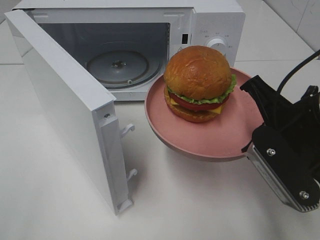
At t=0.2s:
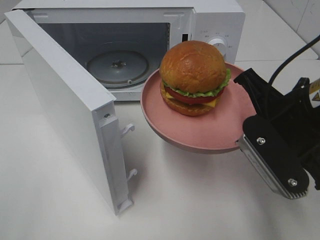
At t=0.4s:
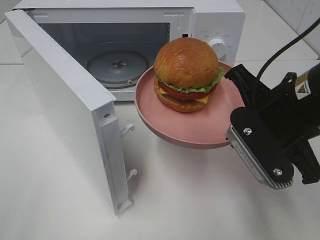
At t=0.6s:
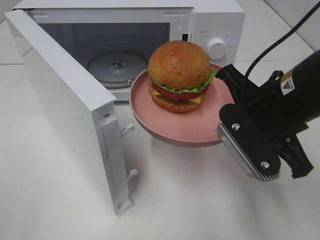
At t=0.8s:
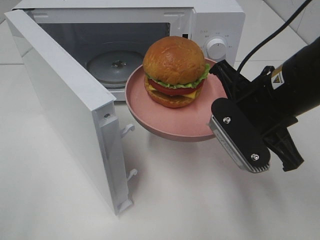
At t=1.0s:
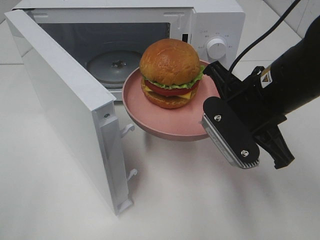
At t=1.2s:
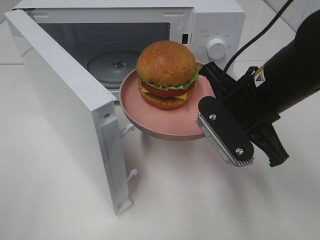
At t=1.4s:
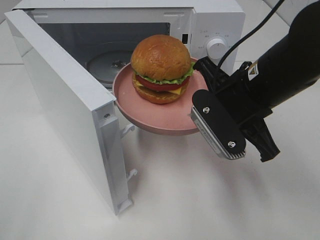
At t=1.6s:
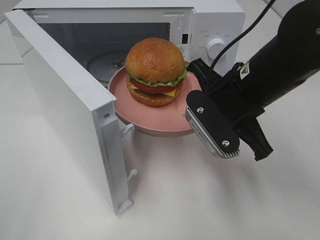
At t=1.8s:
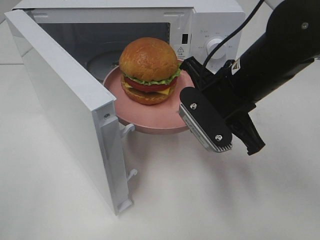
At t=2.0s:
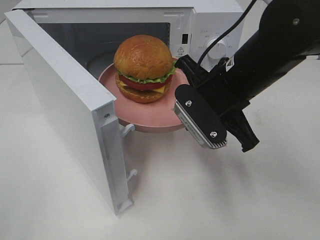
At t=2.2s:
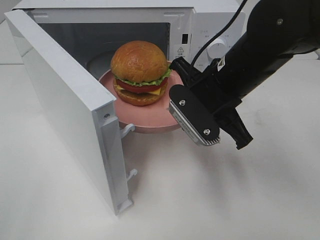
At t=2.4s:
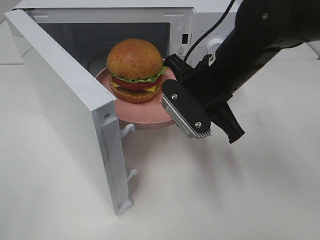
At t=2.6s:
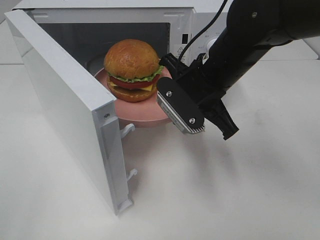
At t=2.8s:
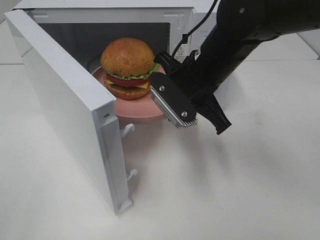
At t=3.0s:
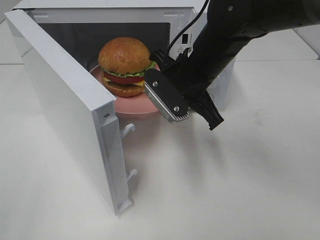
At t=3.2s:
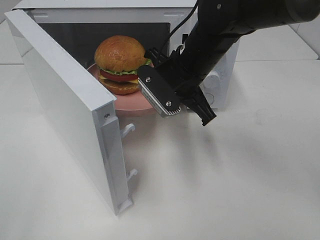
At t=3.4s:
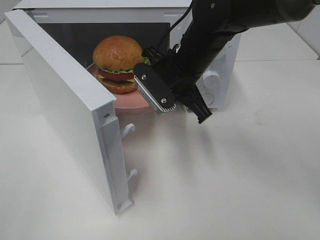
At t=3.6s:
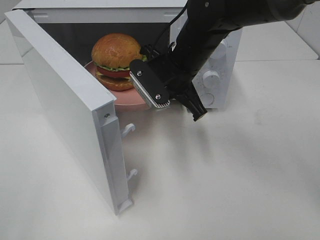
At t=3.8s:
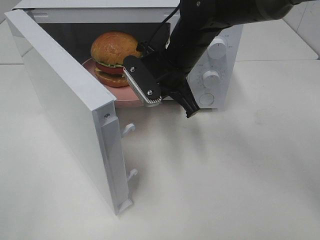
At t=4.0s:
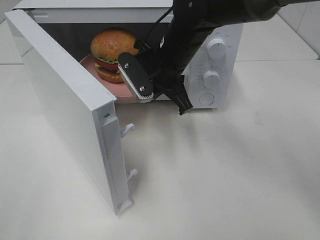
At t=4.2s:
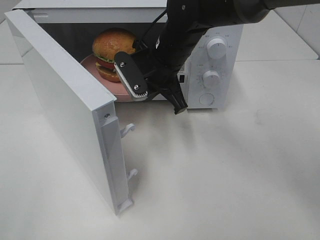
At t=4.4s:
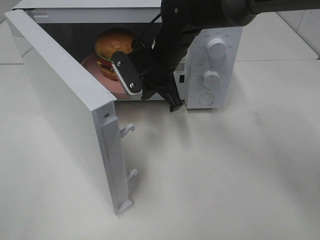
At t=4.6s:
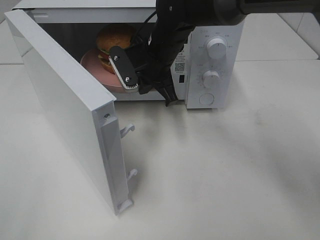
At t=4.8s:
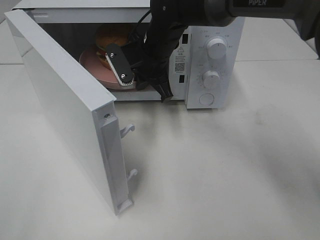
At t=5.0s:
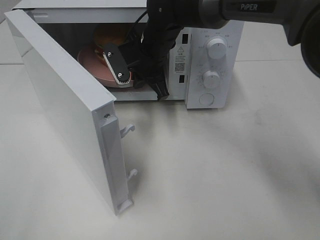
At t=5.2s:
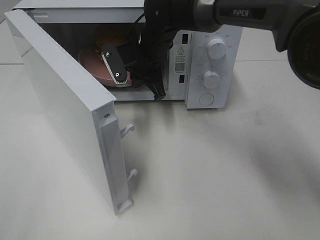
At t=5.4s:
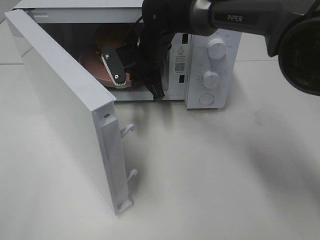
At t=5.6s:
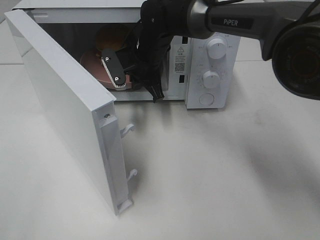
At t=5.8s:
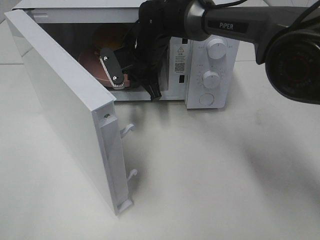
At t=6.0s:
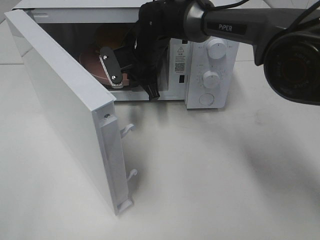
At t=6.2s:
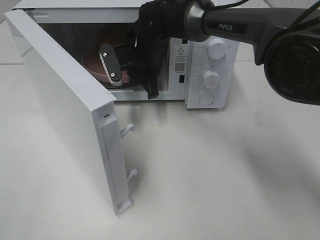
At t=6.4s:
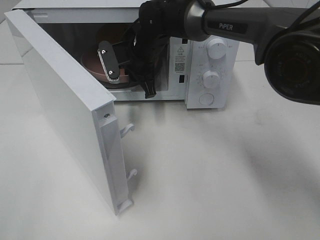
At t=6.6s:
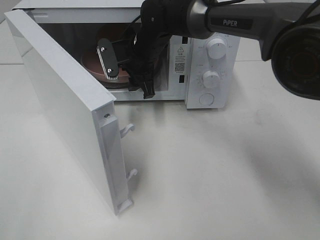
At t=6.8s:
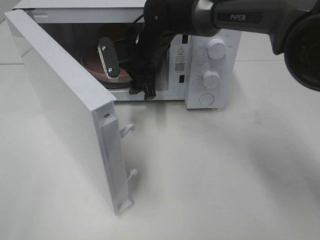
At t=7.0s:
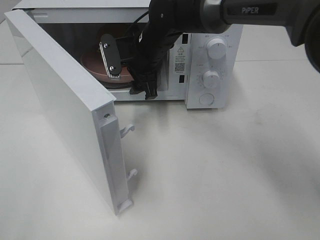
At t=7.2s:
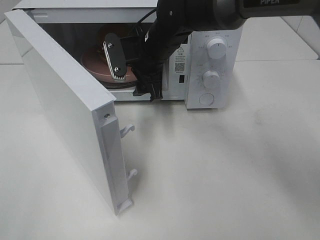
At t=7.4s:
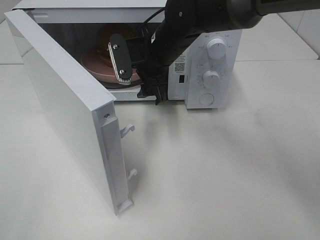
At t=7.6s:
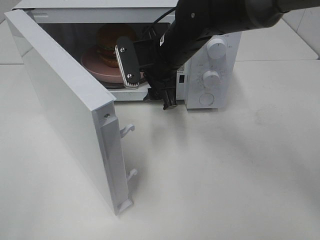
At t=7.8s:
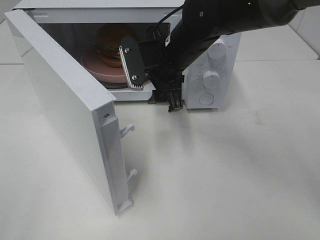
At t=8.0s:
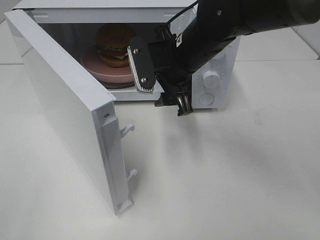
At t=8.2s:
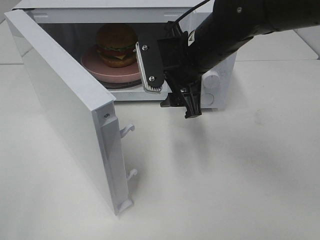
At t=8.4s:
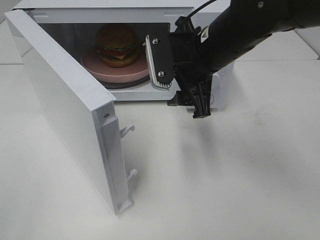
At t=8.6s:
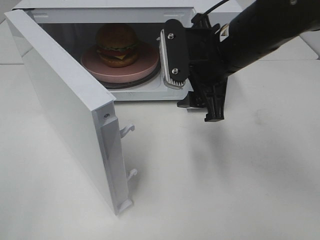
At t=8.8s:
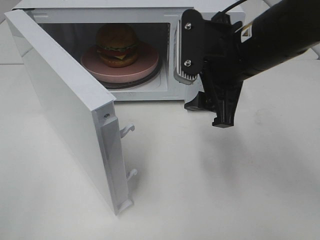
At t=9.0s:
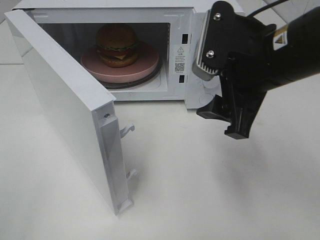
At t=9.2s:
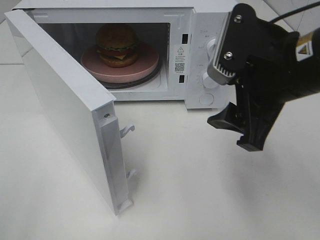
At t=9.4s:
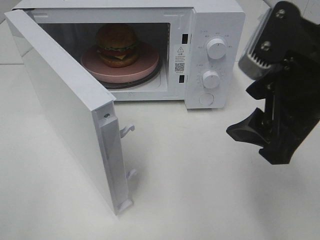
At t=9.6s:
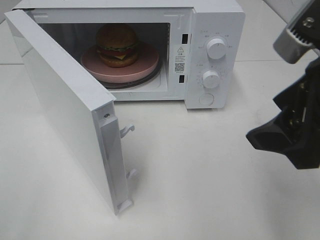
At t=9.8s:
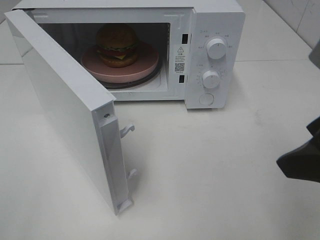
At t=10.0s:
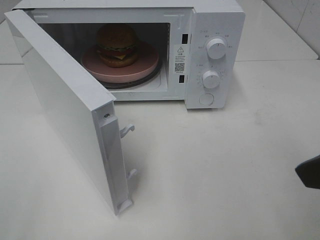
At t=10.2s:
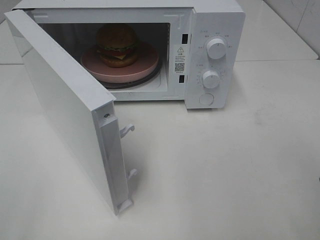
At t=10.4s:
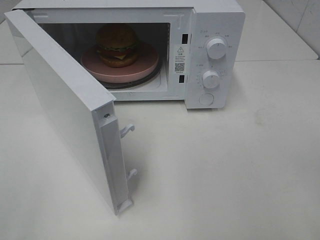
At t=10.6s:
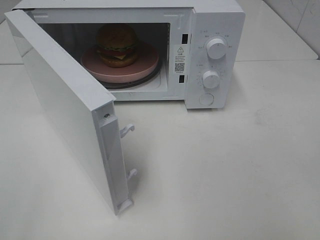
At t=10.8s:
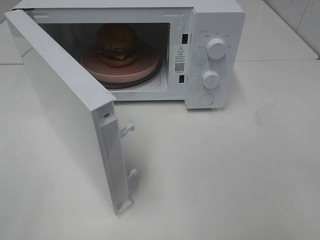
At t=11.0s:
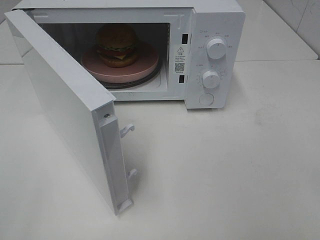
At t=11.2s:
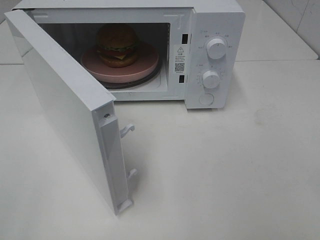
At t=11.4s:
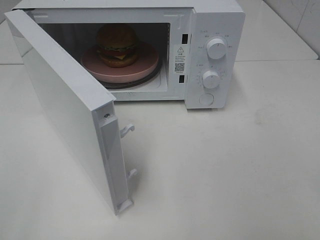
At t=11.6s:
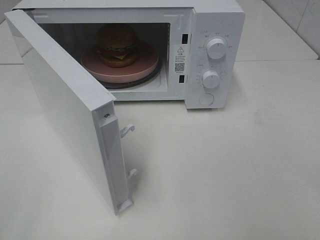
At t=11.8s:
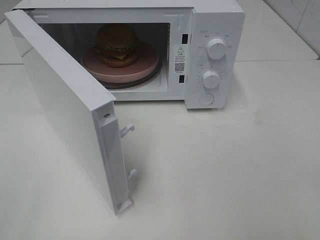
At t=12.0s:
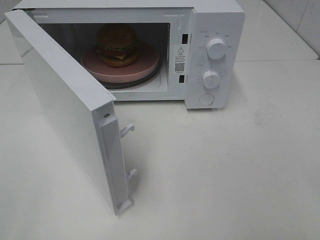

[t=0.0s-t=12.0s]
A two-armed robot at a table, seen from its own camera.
Task of the whole recording: Heat the burger.
Step, t=0.0s to t=6.2s: Right hand: place the plate in the microwave.
t=0.0s to t=1.6s: The right gripper goes about 10 cm forward and to the left.
t=1.6s to t=3.0s: The right gripper travels forward and to the left by approximately 10 cm.
t=3.0s to t=4.4s: The right gripper heads forward, covering some 5 cm.
t=4.4s to t=6.0s: The right gripper shifts approximately 5 cm forward.
t=6.0s to t=7.6s: The right gripper travels backward by about 10 cm, and opens its fingers.
t=7.6s to t=9.0s: The right gripper moves backward, to the right and upward, about 20 cm.
t=9.0s to t=10.4s: The right gripper travels backward and to the right by roughly 20 cm.

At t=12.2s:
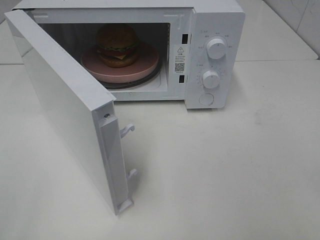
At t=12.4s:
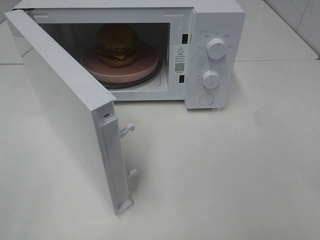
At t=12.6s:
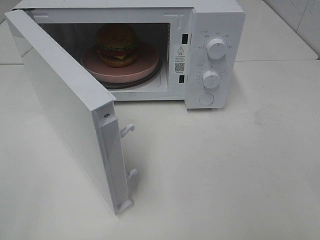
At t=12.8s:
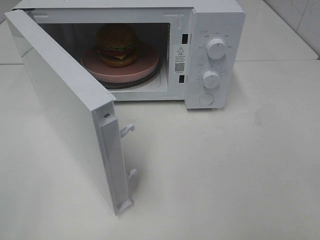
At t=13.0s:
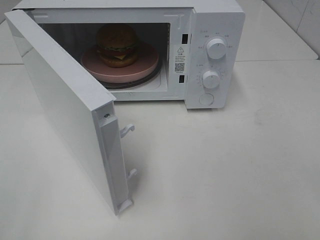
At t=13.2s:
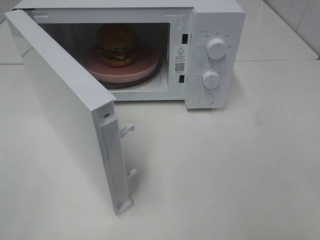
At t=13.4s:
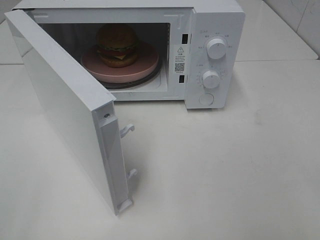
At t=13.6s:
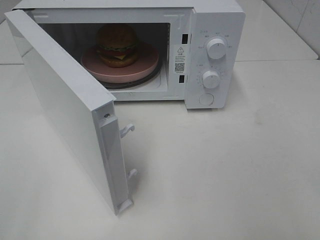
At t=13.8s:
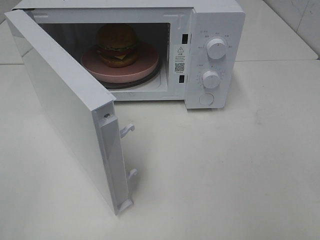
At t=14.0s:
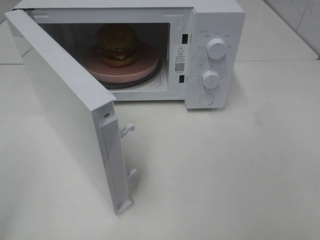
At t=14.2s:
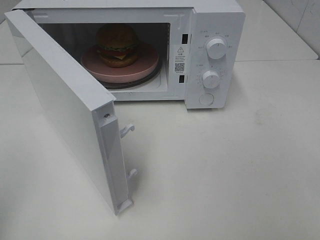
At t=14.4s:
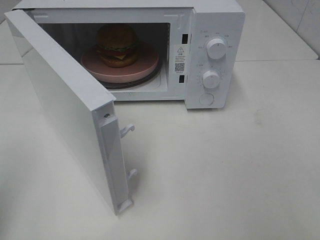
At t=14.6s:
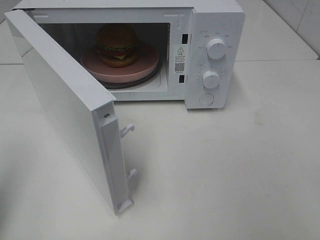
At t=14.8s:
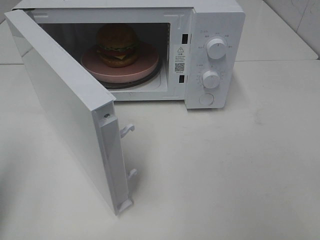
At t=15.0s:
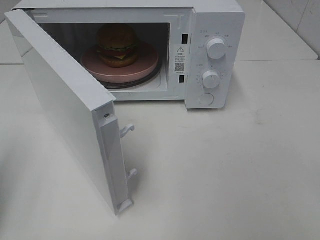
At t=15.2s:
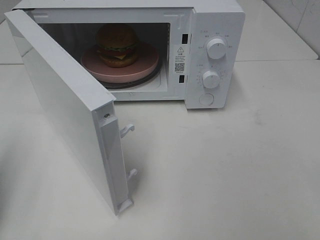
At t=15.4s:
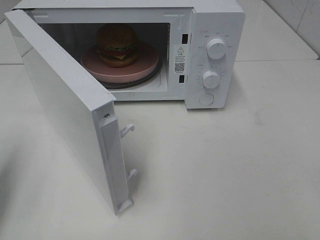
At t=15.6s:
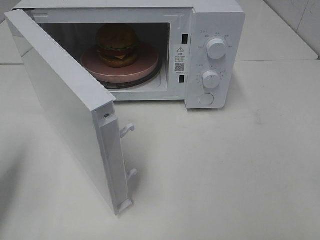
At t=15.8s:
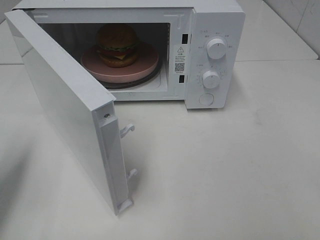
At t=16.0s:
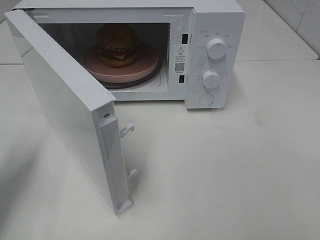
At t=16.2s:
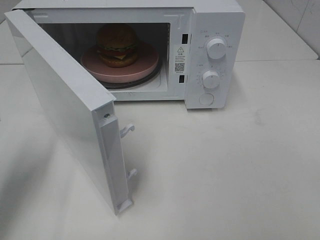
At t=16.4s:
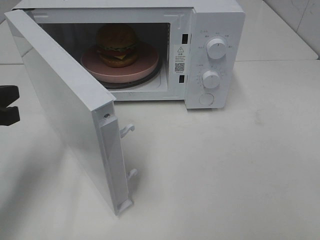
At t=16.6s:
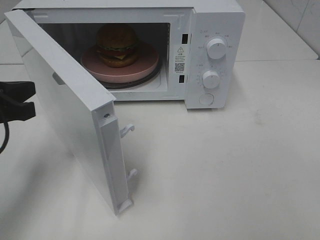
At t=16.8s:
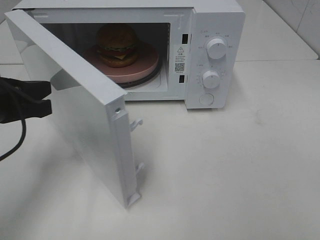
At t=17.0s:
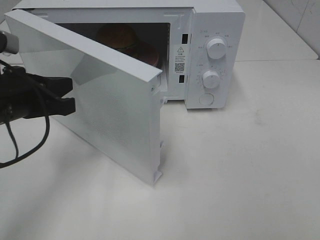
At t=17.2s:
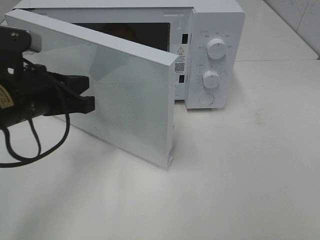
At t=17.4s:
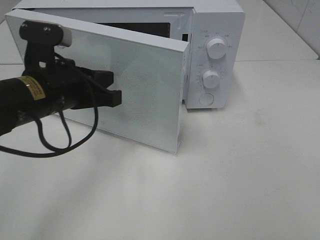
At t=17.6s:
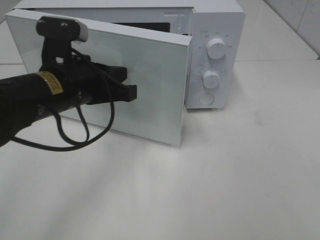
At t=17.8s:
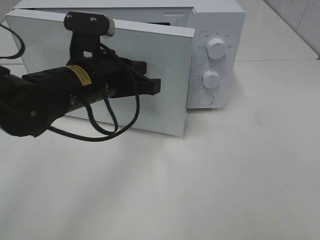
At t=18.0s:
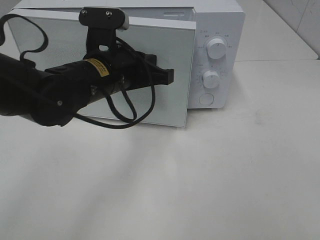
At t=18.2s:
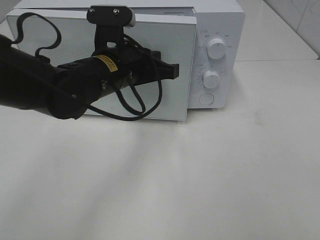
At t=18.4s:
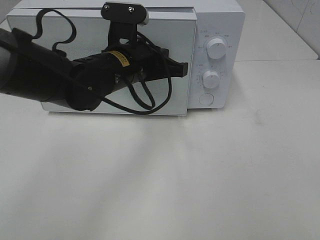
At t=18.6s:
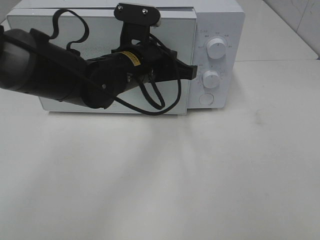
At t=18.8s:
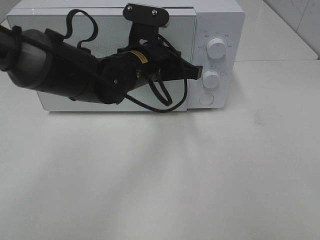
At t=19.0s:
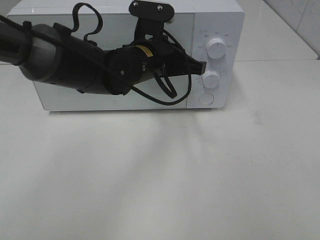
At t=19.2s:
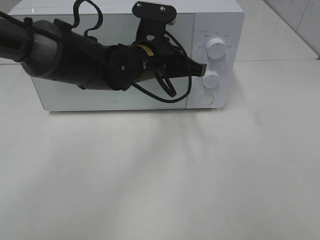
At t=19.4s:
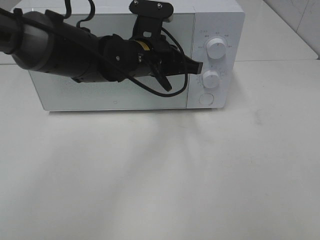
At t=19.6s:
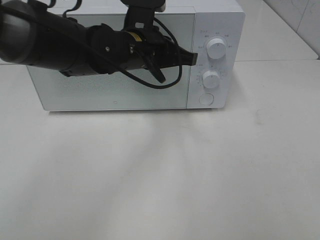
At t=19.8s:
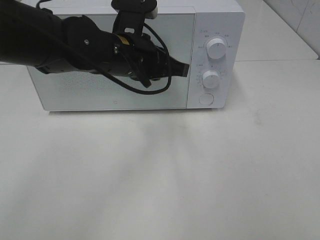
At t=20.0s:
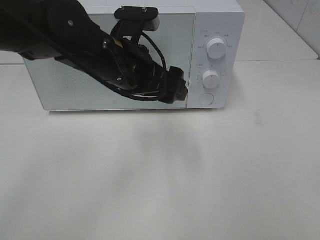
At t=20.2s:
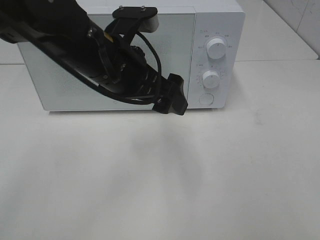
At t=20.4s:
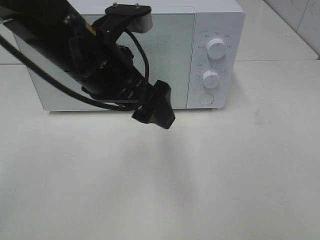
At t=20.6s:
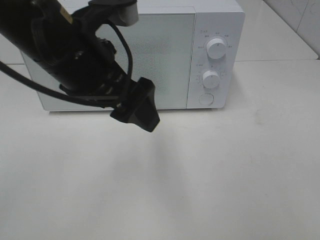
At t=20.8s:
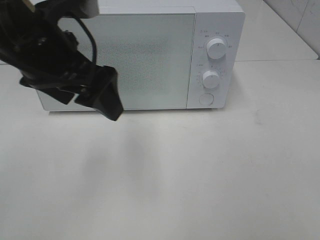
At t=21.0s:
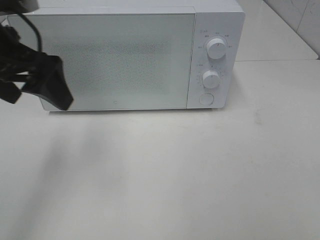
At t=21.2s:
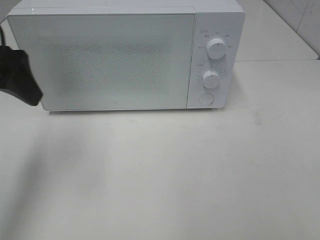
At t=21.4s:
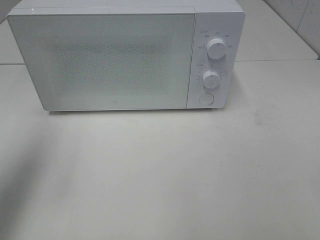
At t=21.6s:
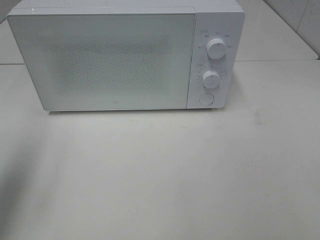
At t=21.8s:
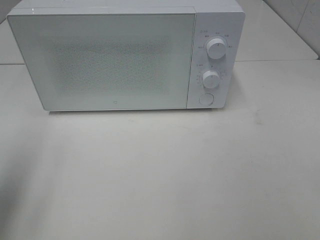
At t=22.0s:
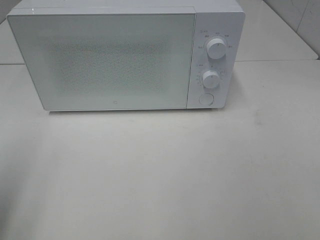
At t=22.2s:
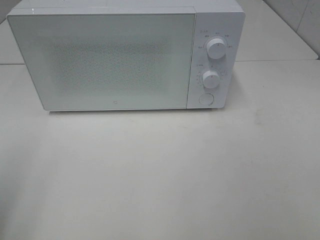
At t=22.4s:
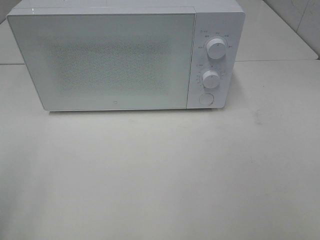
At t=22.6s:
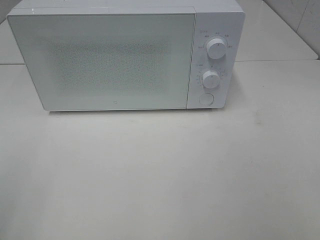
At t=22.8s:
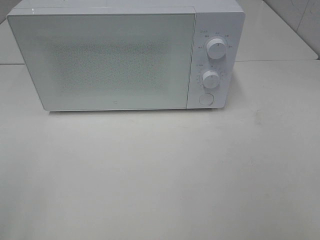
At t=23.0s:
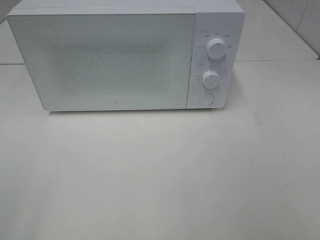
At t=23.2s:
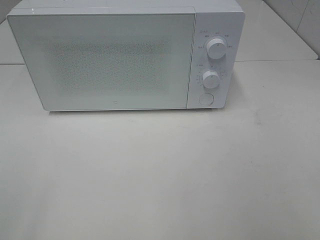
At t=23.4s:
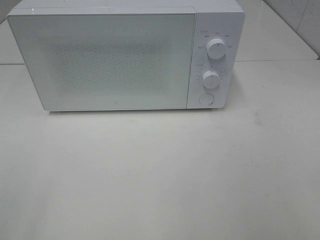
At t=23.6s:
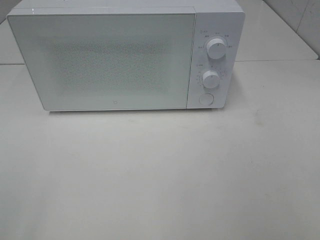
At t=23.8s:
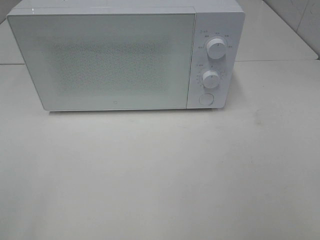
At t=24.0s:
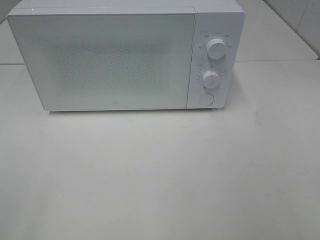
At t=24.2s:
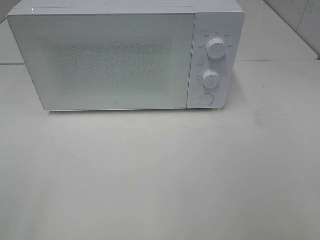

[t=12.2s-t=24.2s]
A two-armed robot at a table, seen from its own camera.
Task of the whole recording: Heat the burger.
Step, t=12.2s to t=19.6s: Left hand: close the microwave door.
t=13.8s to t=15.2s: The left gripper shifts some 15 cm forward and downward, and closes its fingers.
t=15.2s to t=16.6s: The left gripper goes approximately 10 cm to the right and forward.
t=16.6s to t=18.2s: The left gripper shifts about 20 cm to the right and forward.
t=19.8s to t=21.2s: The left gripper shifts about 20 cm to the left and upward, and opens.
t=21.2s to t=22.6s: The left gripper is displaced backward by approximately 20 cm.
